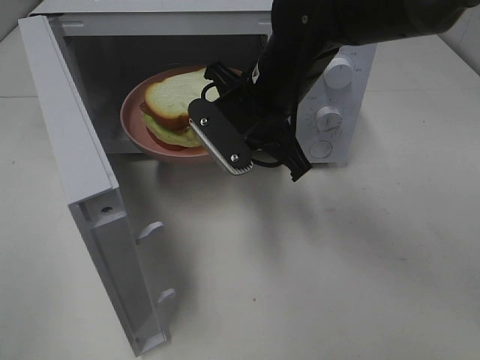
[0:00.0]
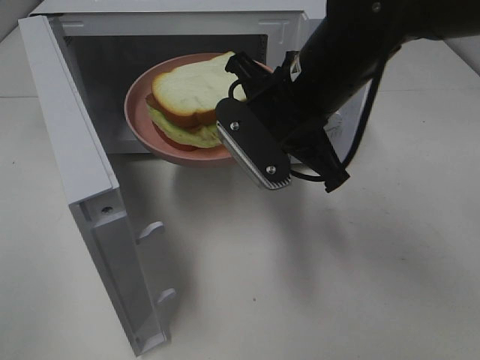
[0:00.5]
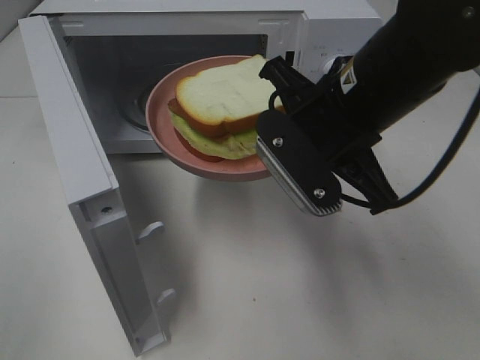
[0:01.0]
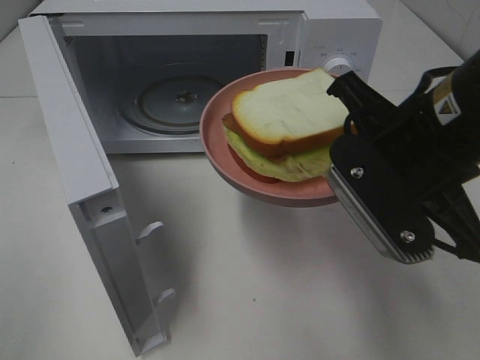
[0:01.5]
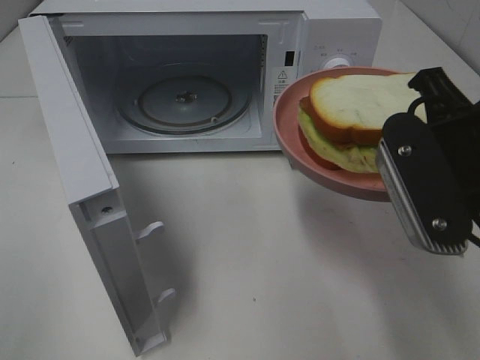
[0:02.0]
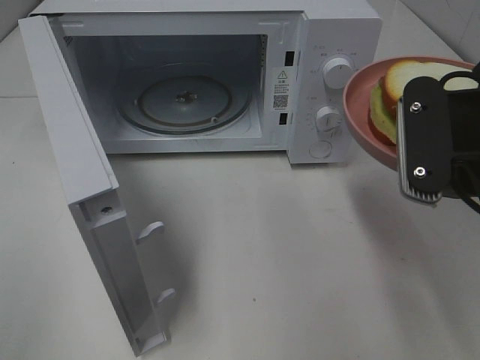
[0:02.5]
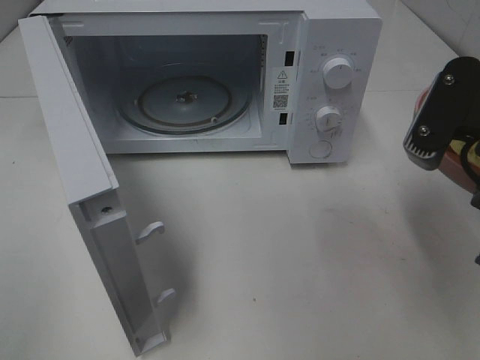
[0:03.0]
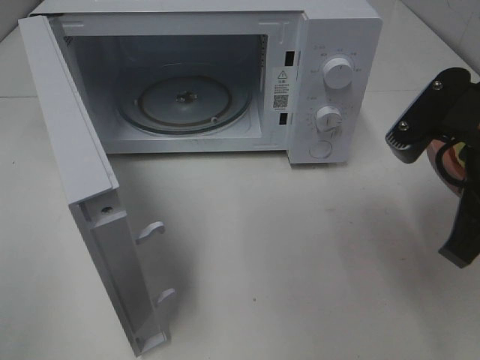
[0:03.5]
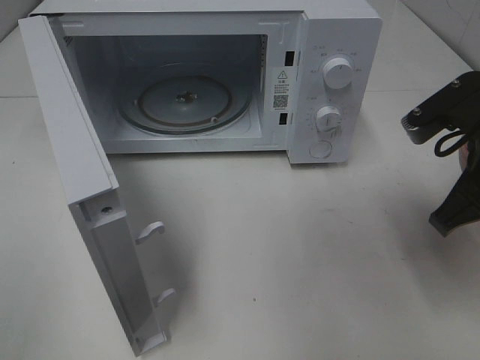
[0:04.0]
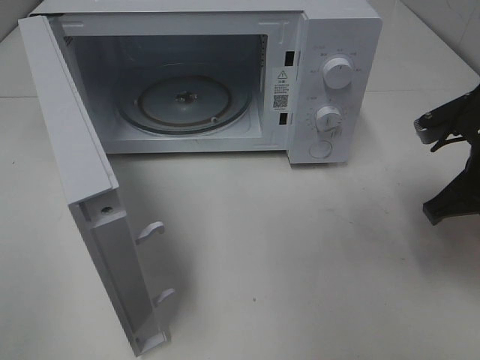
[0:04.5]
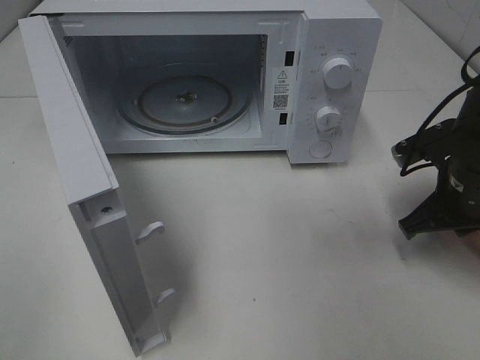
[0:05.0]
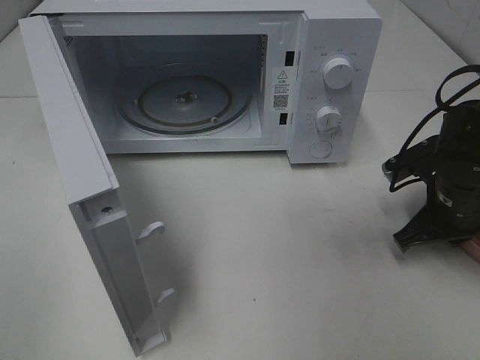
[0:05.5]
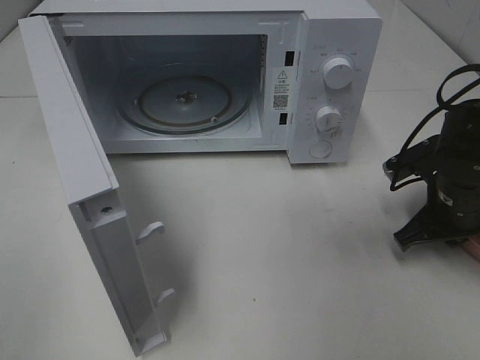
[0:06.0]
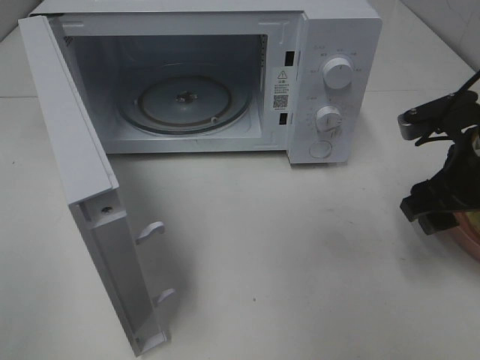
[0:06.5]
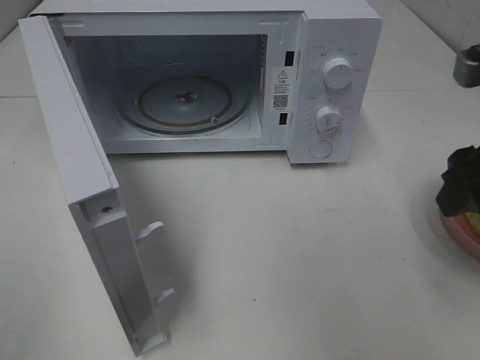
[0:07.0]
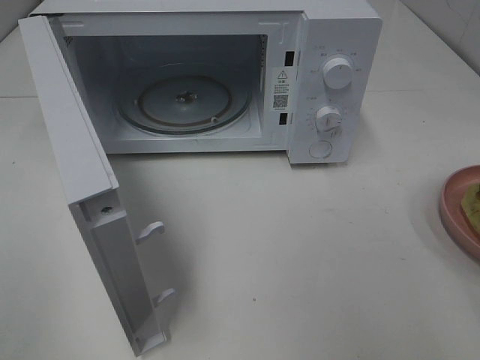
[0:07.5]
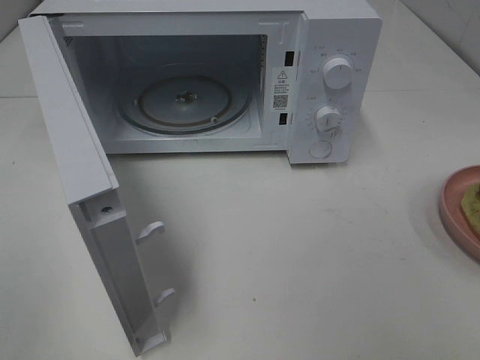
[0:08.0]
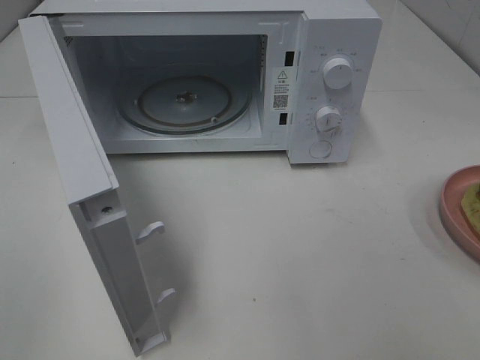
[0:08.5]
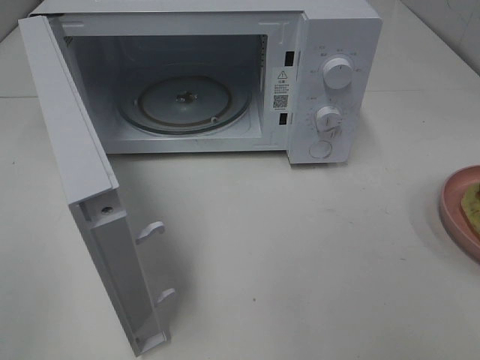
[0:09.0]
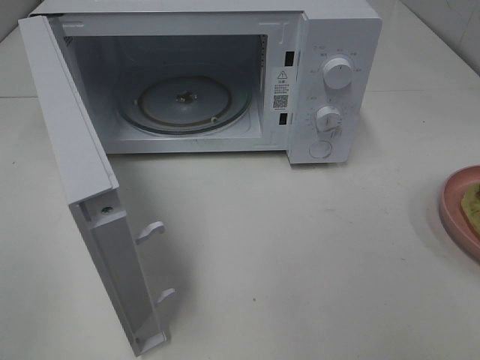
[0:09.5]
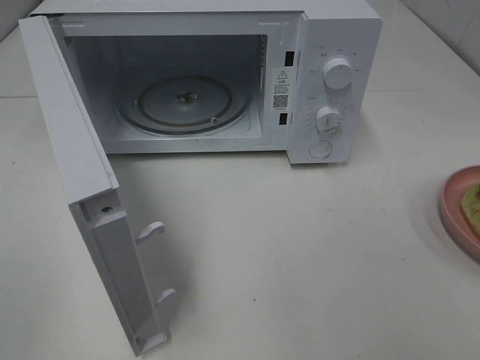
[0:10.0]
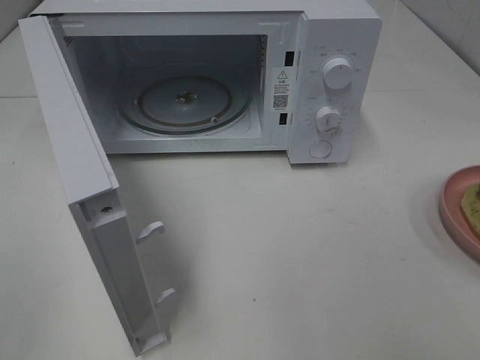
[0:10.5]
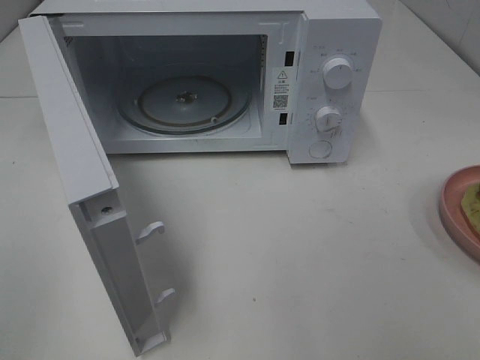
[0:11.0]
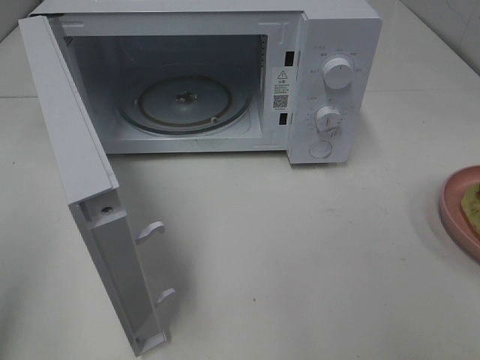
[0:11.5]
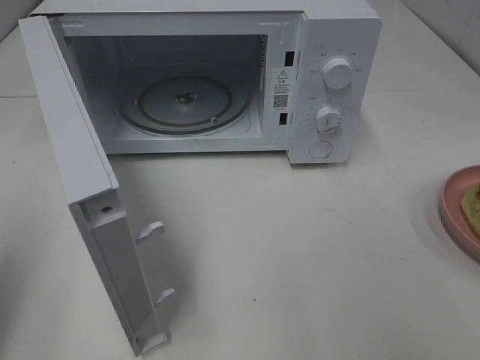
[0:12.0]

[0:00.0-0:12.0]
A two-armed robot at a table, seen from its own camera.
Task of the whole recording: Heat Sandwich.
Step, 0:00.0 to 0:06.5: Right hand: place the plate on the table.
0:00.0 to 0:02.0: The right gripper is displaced backward and to the right by roughly 20 cm.
0:02.0 to 0:04.0: The right gripper shifts roughly 5 cm forward and downward.
0:04.0 to 0:06.0: The right gripper goes about 15 cm downward and forward.
0:06.0 to 0:08.0: The right gripper is displaced backward and upward by some 30 cm, and opens its fingers.
0:10.0 to 0:12.0: The left gripper travels forward by approximately 10 cm, and closes its fingers.

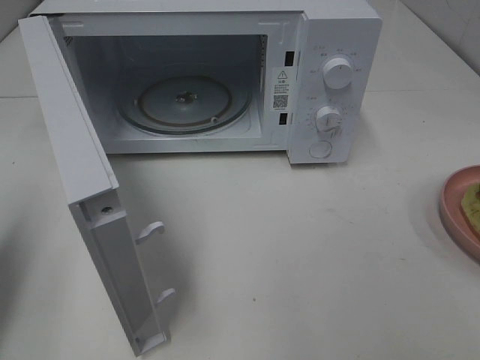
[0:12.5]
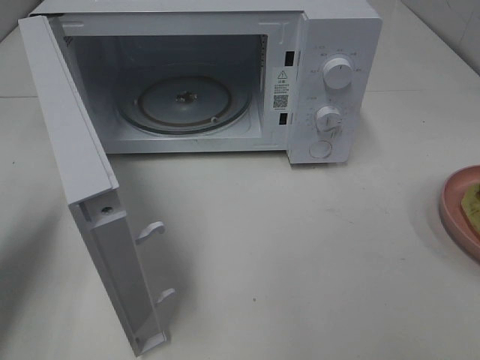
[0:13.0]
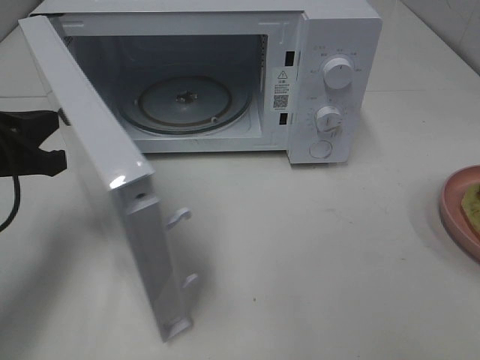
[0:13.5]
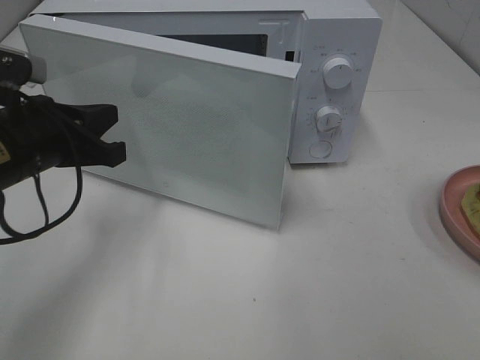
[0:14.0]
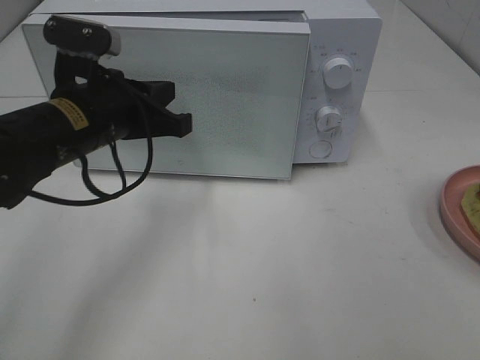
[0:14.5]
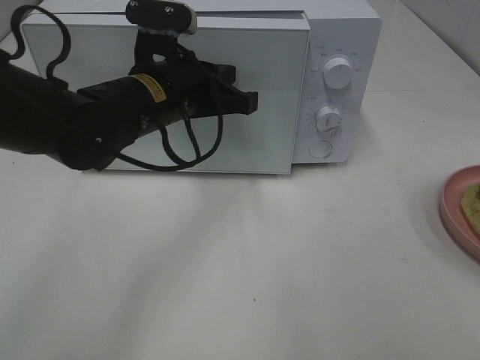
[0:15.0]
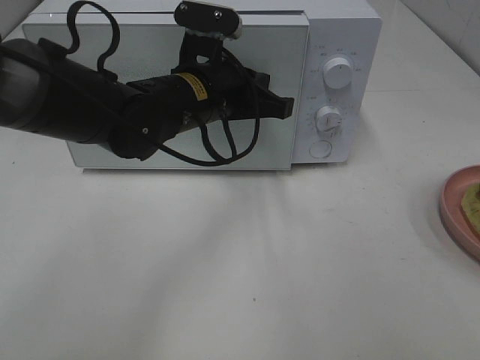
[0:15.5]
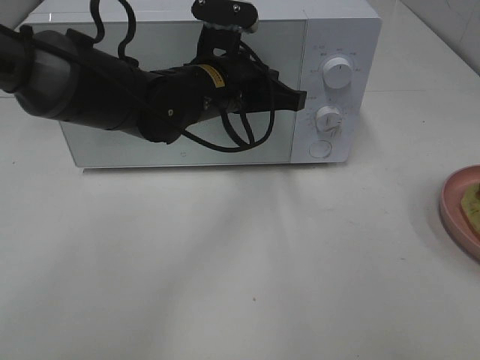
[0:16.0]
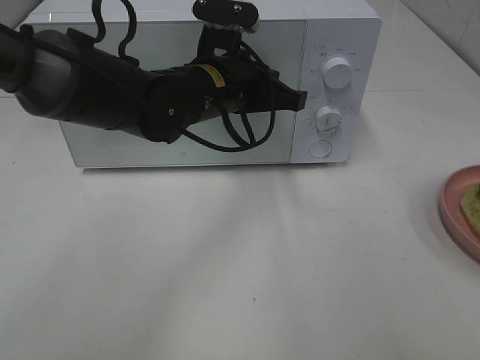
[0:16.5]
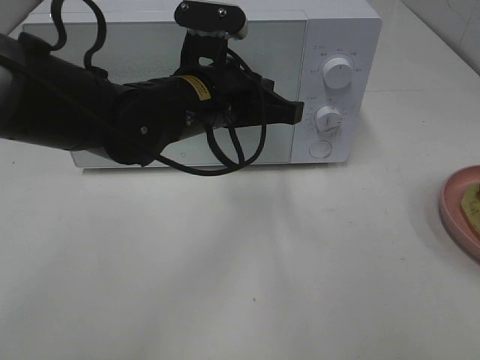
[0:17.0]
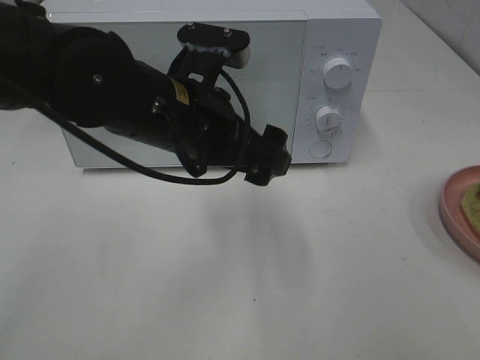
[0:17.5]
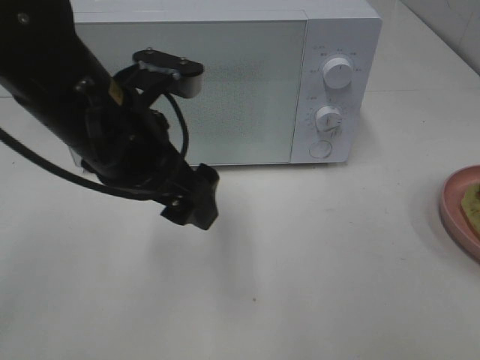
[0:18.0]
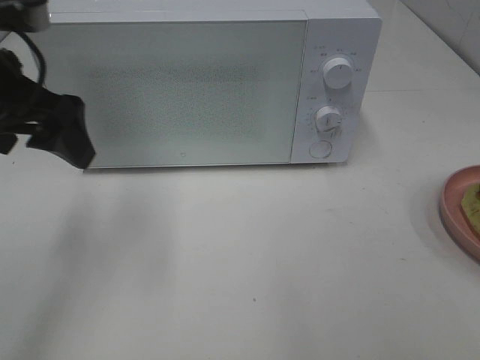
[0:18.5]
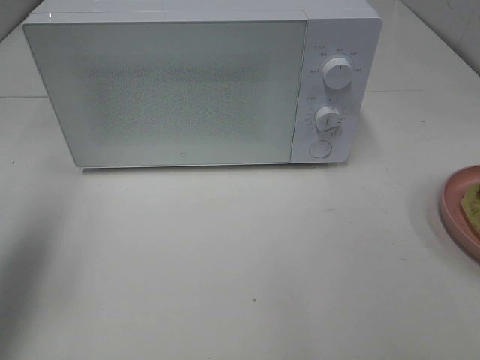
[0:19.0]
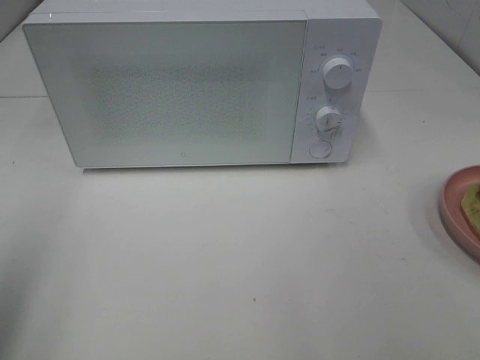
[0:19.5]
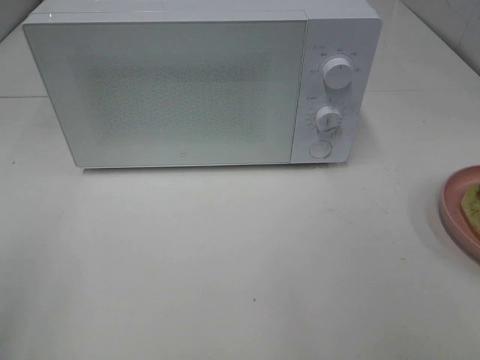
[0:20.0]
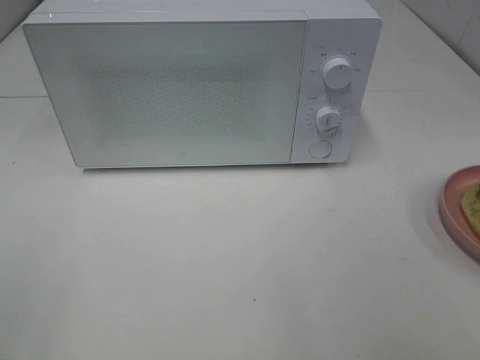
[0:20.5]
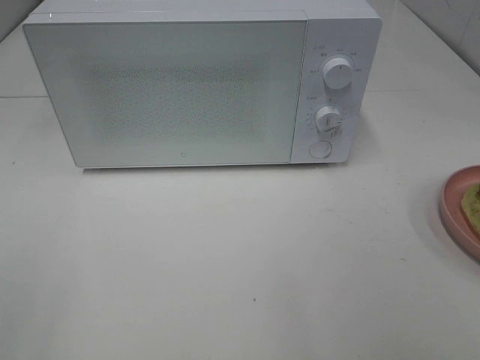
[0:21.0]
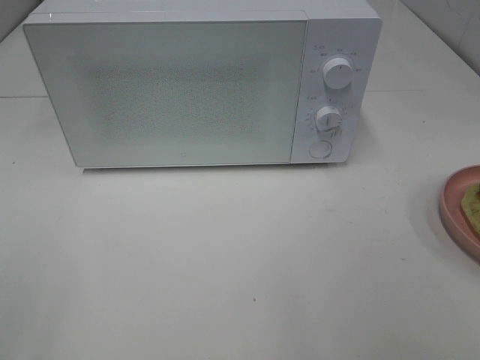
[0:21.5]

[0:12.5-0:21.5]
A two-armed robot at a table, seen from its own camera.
Task of the whole recording: Heat Sandwich.
Step, 0:12.5 to 0:17.0: Left hand: close the microwave door.
0:12.5 to 0:14.5: The left gripper shifts roughly 25 cm to the right and forward.
0:14.5 to 0:17.0: The left gripper travels to the right by approximately 10 cm.
0:17.0 to 0:19.5: The left gripper goes approximately 35 cm to the left and backward, and opens.
0:19.5 to 0:21.5: The left gripper heads backward, covering approximately 15 cm.

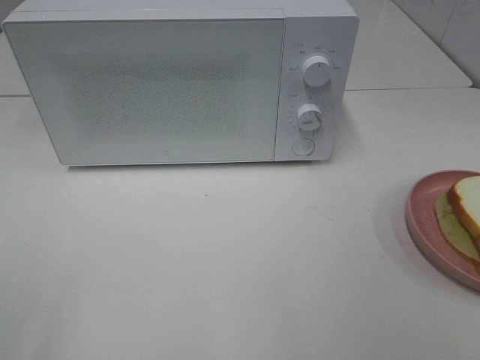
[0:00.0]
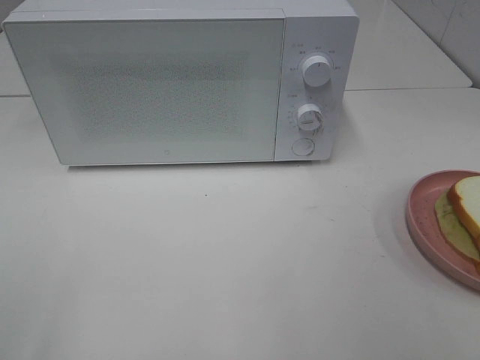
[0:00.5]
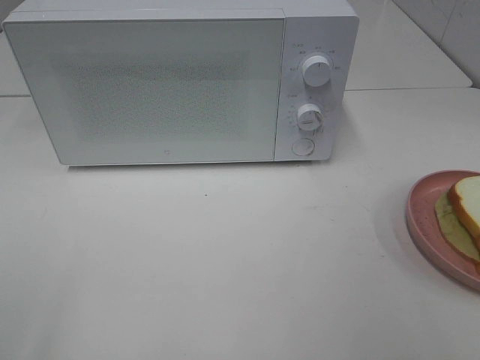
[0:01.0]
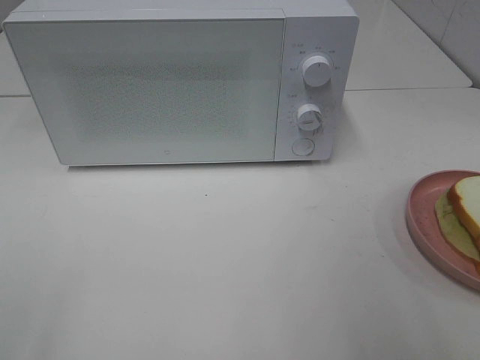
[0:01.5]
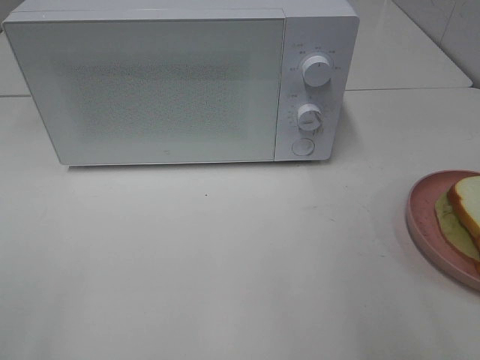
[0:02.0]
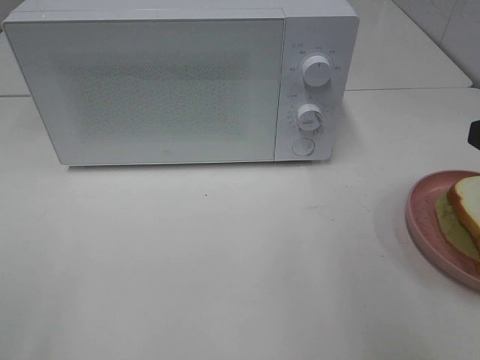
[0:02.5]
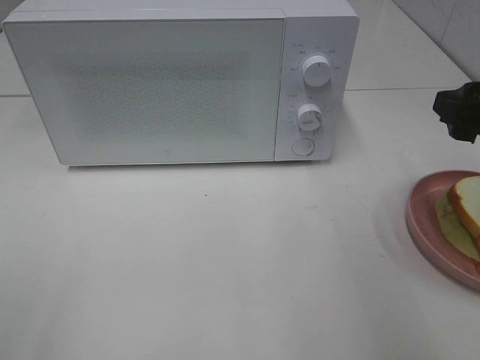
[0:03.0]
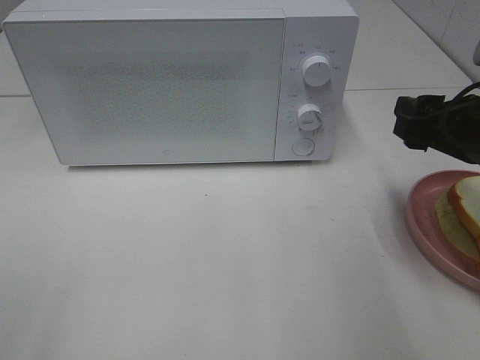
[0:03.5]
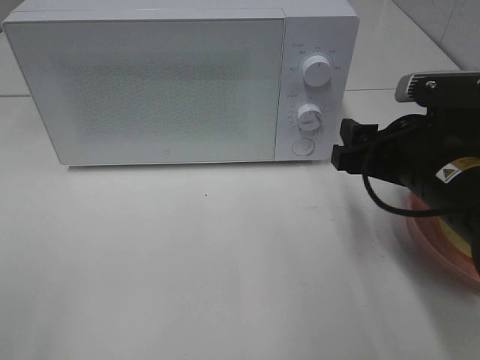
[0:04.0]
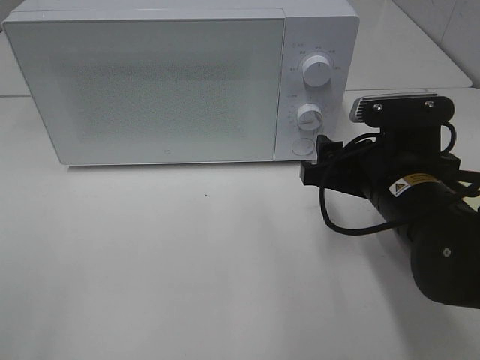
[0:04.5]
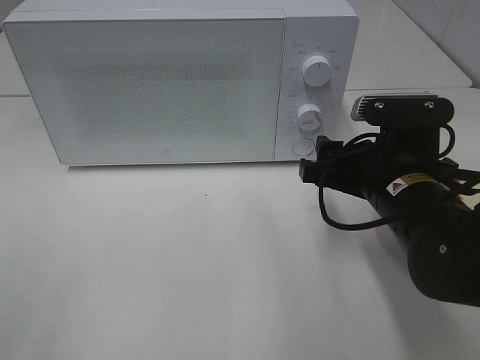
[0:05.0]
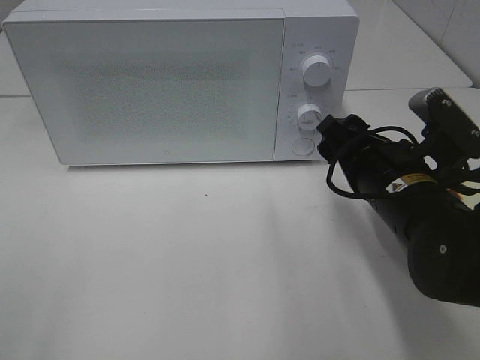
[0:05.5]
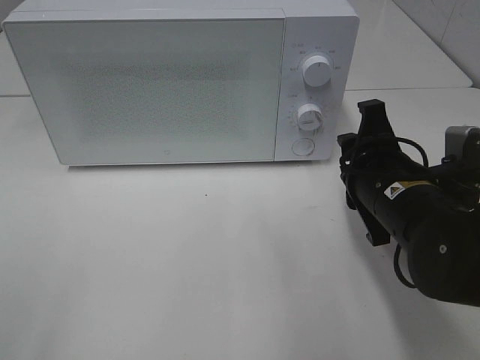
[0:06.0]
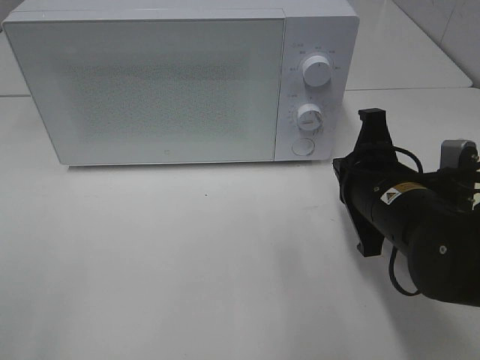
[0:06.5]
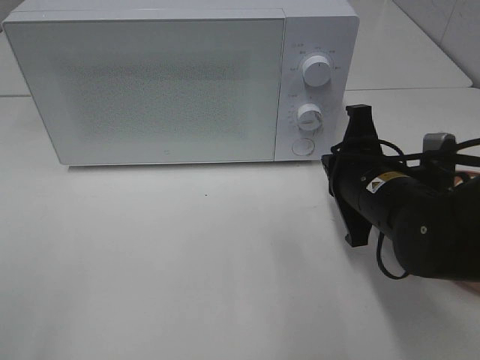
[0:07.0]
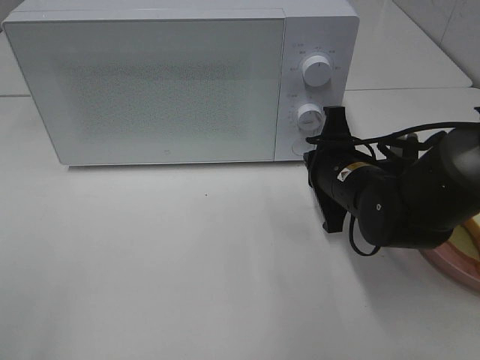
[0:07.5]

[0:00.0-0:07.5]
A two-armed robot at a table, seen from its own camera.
Task of the whole recording: Heat Sandwich.
0:02.0 to 0:04.0: The right gripper travels forward, downward and to the left by about 20 cm.
0:05.5 to 0:07.5: The right gripper goes approximately 5 cm forward, and closes.
